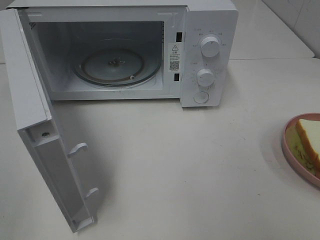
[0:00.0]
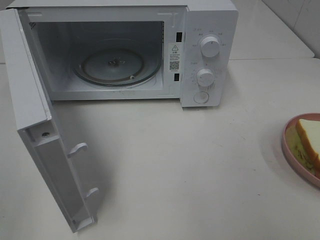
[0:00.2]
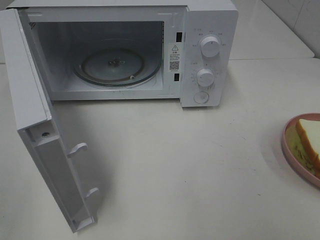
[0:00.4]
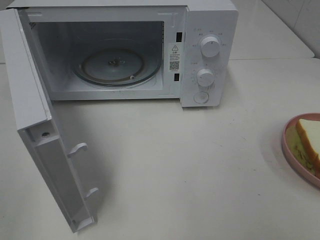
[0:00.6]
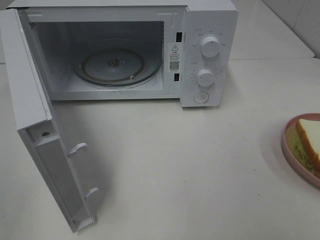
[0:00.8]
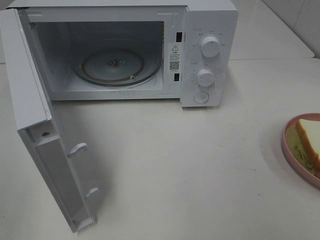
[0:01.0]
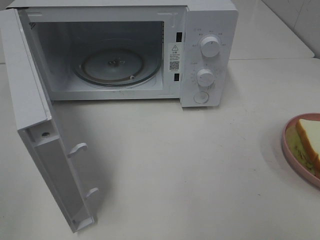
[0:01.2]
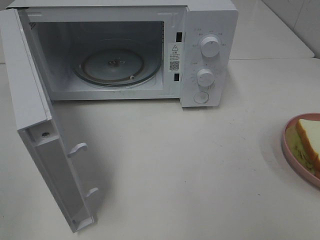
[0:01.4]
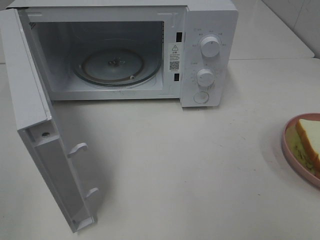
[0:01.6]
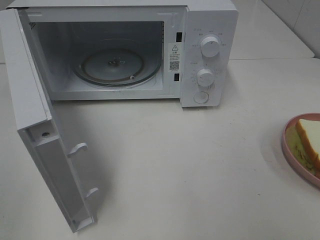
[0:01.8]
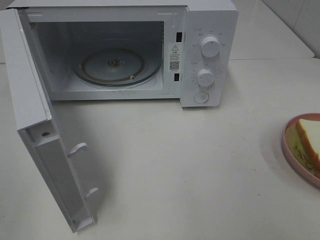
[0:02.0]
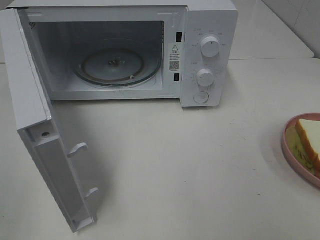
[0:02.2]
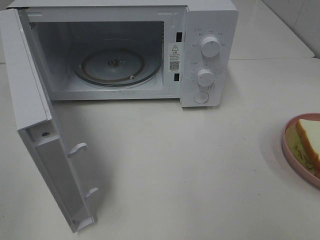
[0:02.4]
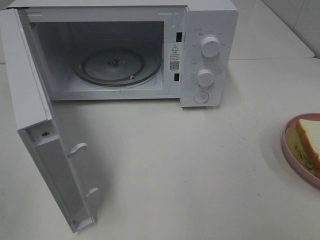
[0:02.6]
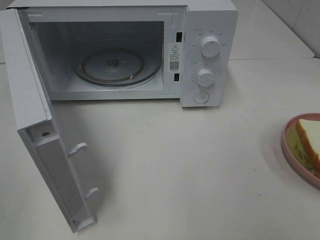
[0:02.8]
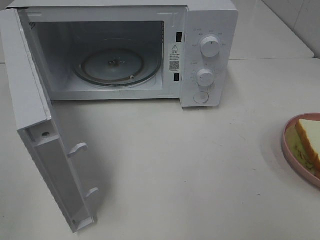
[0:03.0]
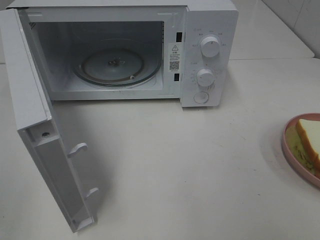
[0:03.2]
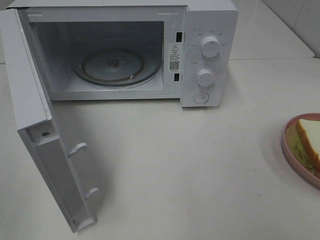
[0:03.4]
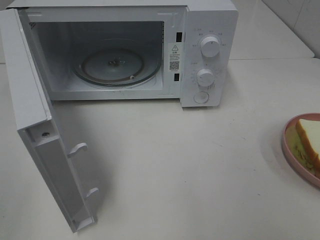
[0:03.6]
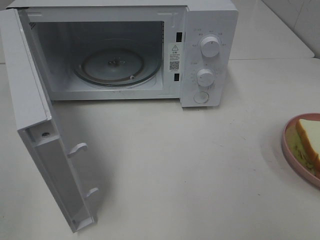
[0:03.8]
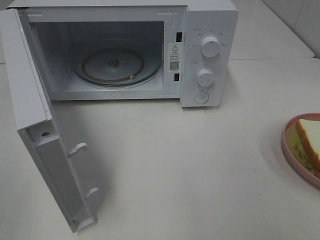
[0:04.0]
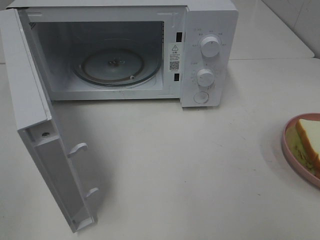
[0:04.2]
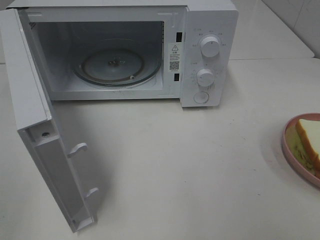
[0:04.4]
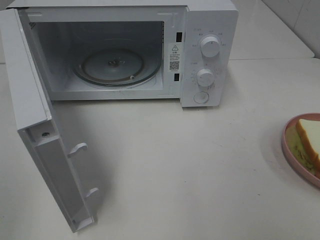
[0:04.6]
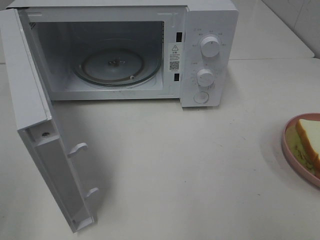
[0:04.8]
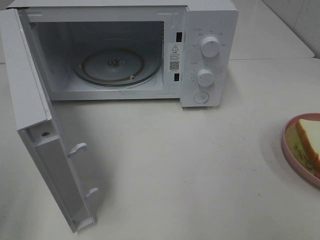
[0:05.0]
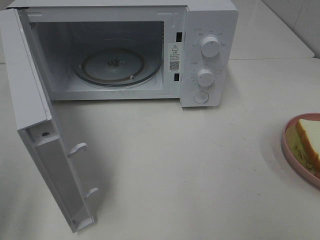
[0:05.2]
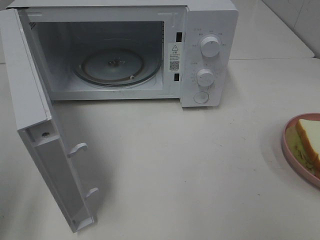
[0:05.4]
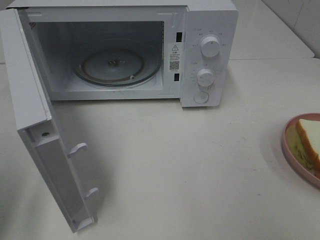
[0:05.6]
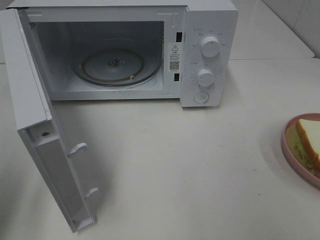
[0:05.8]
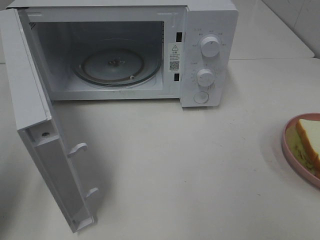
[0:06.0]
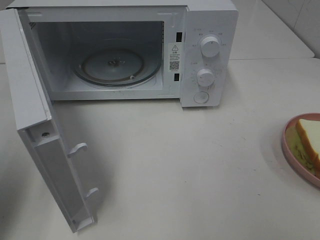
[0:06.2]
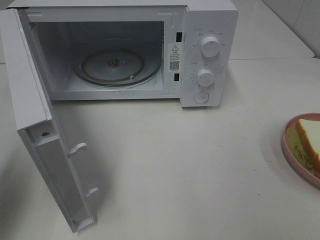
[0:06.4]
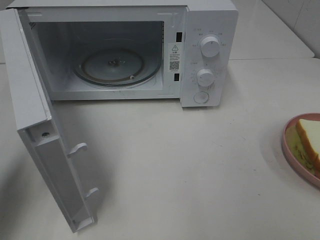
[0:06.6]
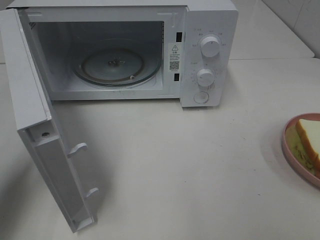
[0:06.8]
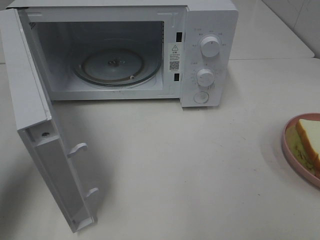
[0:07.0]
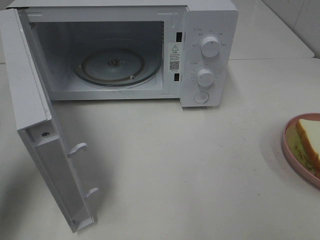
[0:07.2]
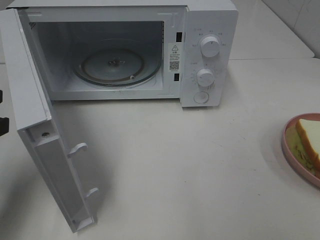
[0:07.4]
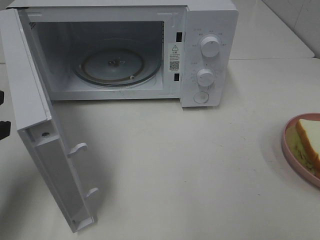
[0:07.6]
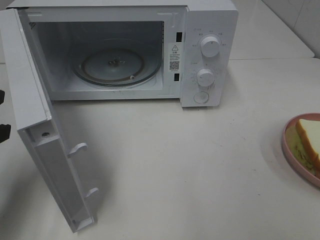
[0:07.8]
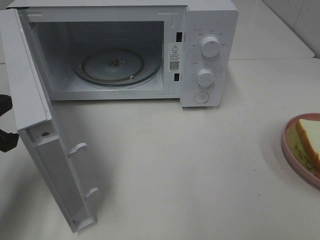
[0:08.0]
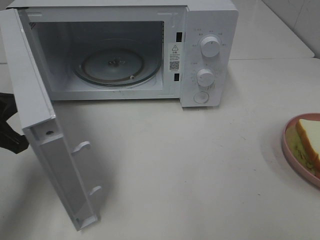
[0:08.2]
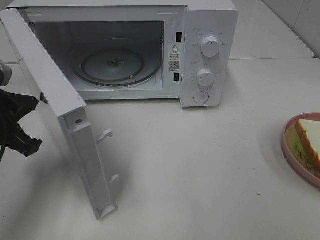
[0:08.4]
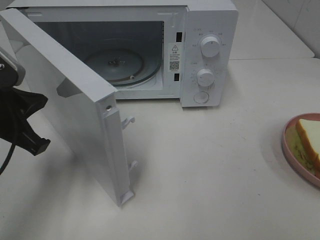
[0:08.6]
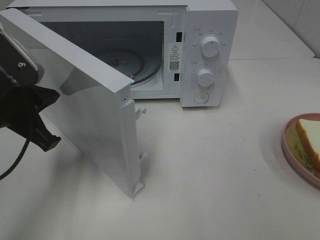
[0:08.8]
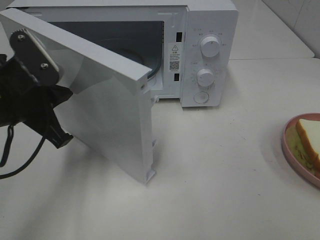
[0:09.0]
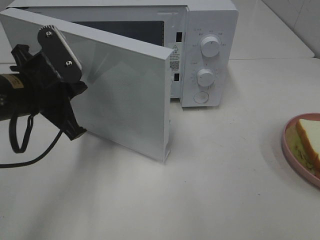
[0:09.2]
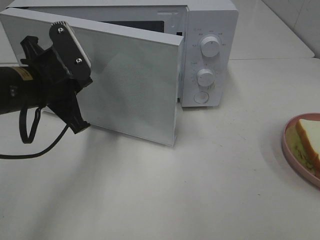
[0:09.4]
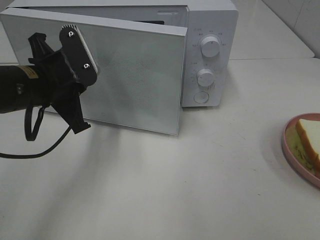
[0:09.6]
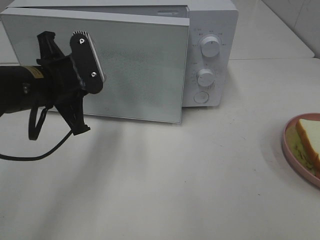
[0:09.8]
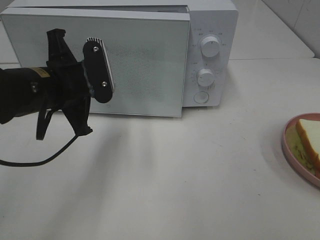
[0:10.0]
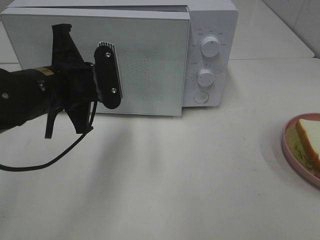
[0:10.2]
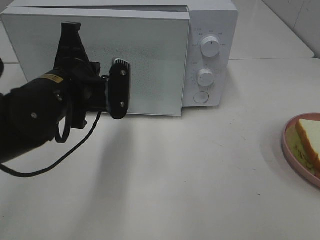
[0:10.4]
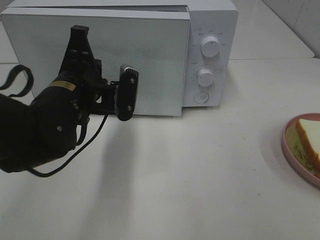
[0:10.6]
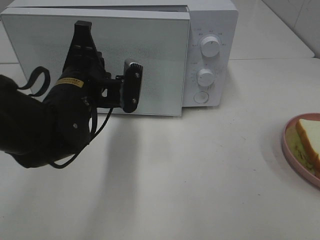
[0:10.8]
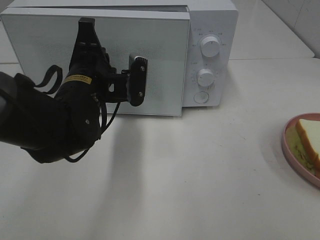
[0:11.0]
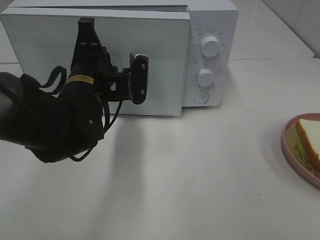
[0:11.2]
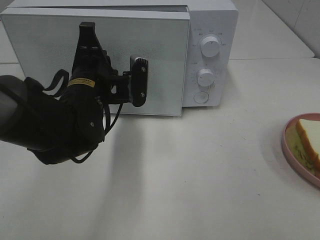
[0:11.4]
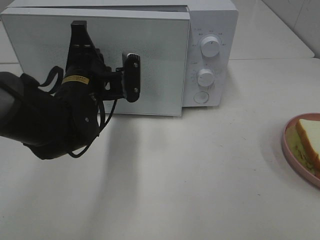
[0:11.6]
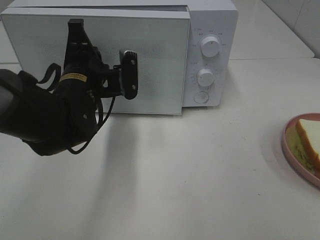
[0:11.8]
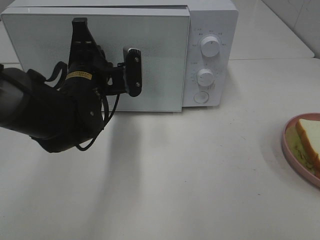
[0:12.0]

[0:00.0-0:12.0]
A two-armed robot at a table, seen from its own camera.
Task of the whole recording: Heat Sandwich.
0:01.6 to 0:04.4: Neither gripper changes place.
0:04.4 to 0:06.0: The left gripper goes some 15 cm forward.
0:06.0 to 0:07.6: The left gripper moves forward, roughly 5 cm, and closes up.
0:07.6 to 0:09.0: The left gripper heads to the right, covering approximately 10 cm.
0:09.0 to 0:10.4: The left gripper heads to the right, covering some 5 cm.
0:10.4 to 0:12.0: The left gripper is displaced forward by some 5 cm.

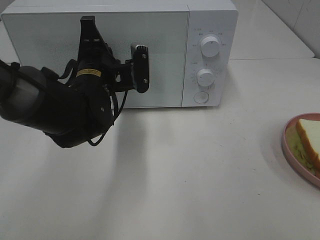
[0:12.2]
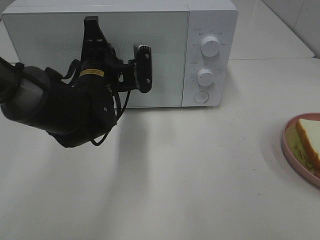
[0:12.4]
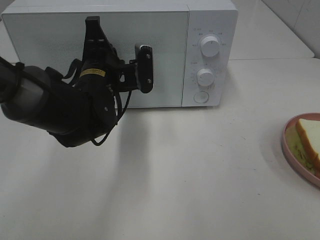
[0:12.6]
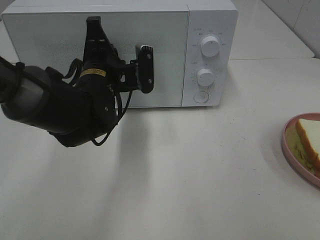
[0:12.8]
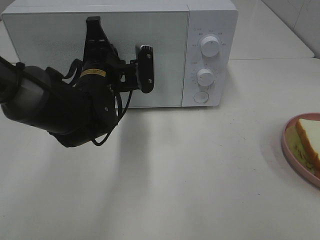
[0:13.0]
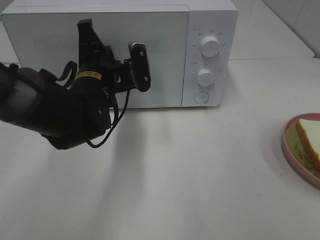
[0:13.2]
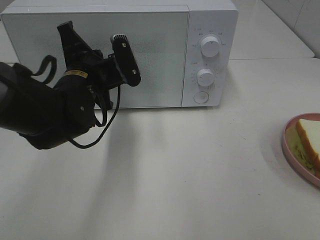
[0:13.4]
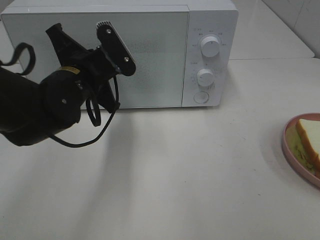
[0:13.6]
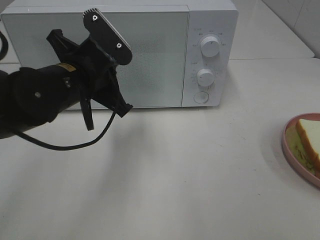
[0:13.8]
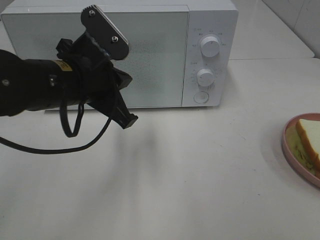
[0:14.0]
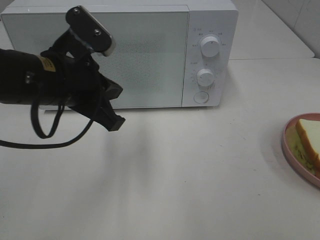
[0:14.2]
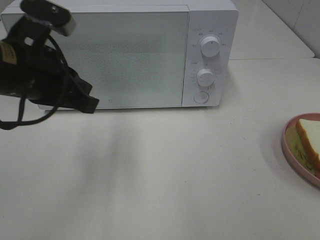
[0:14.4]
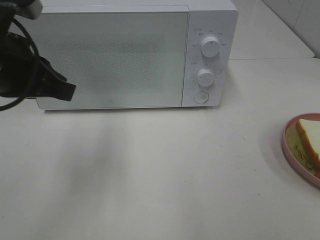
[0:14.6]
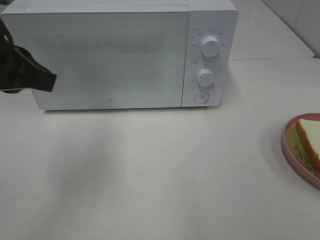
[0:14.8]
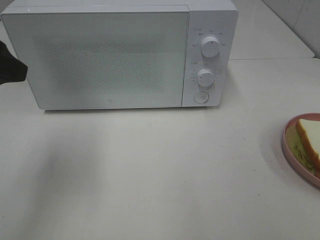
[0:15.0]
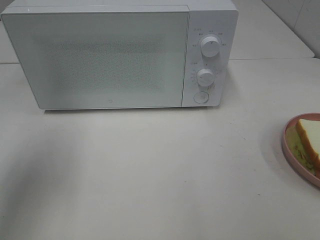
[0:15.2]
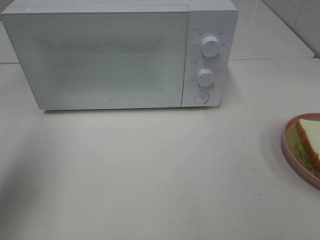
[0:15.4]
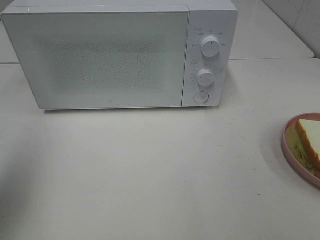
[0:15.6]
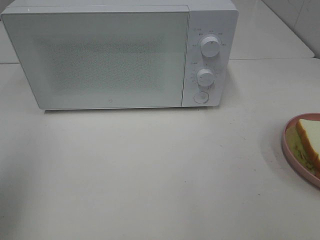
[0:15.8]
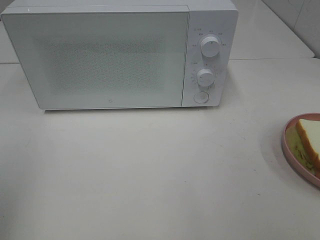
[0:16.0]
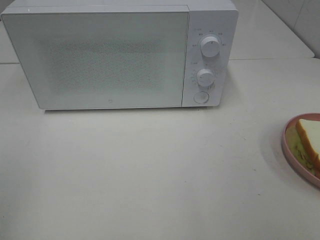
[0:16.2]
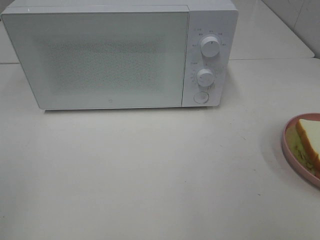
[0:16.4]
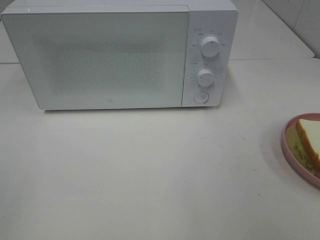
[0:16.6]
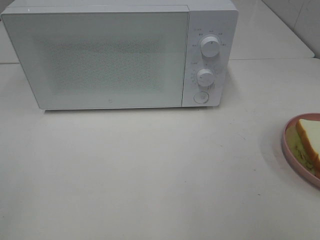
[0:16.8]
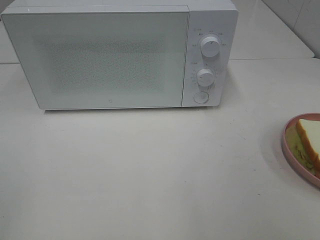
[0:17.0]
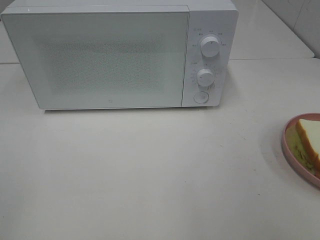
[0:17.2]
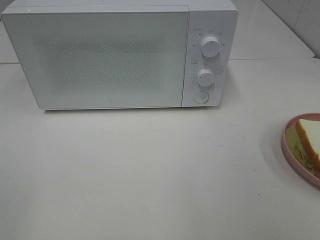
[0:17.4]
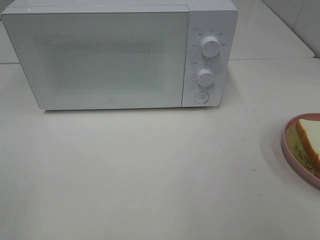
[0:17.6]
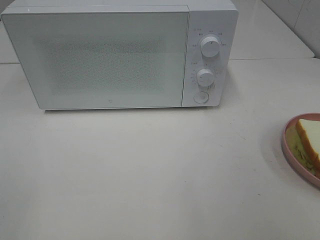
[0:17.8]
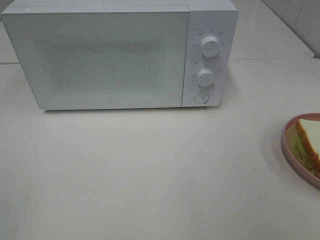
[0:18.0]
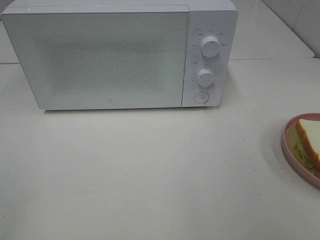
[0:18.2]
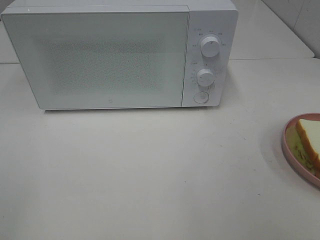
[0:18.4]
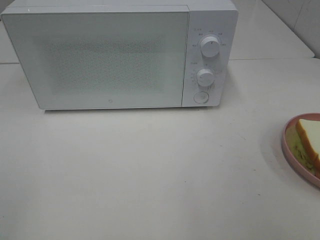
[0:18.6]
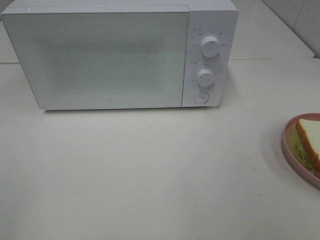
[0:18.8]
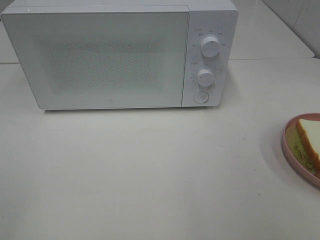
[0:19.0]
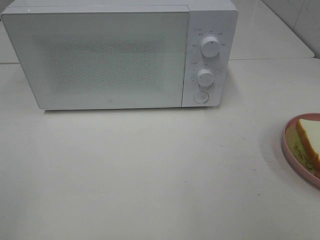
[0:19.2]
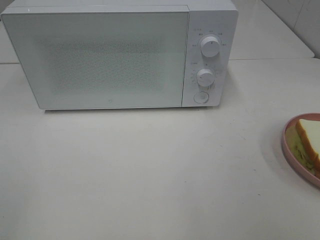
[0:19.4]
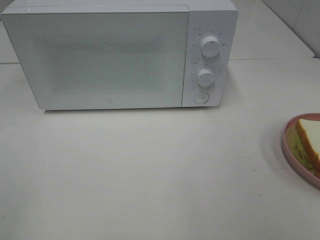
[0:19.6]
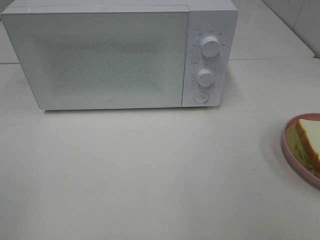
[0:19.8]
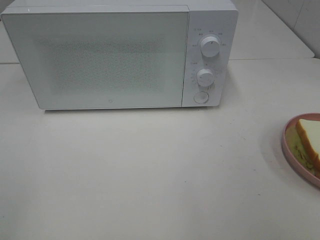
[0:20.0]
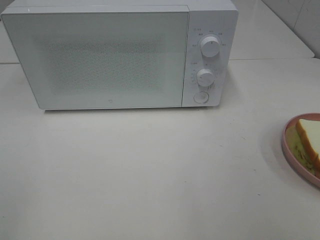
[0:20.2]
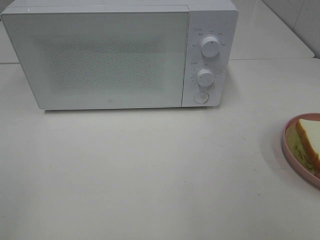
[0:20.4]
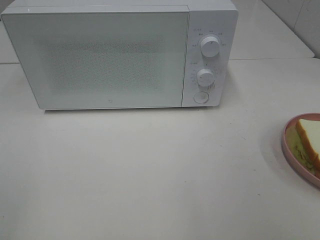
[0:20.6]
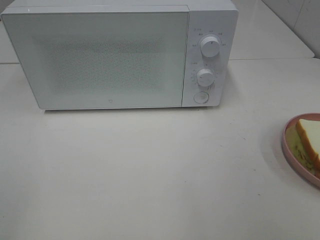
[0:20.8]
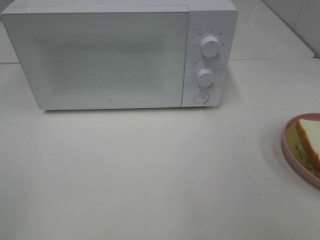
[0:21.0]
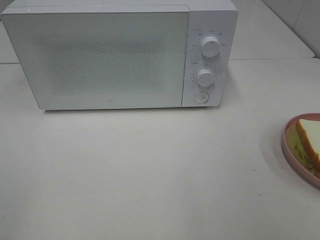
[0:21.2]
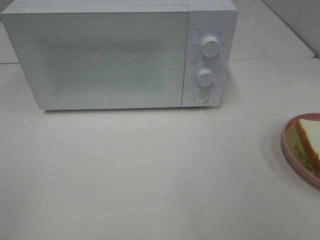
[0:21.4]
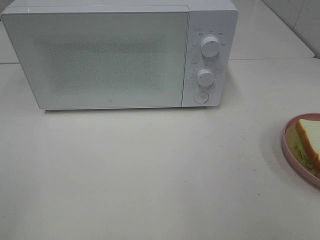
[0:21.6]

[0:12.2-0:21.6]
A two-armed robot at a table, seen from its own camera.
Task of the whole recording: Heat Sandwich.
Step, 0:12.2 to 0:14.2: Left hand: close the microwave door.
0:12.2 to 0:13.8: The left gripper moves backward, some 5 cm.
0:13.8 to 0:15.4: The left gripper goes about 25 cm to the left, upward and backward, and opens its fingers.
0:15.4 to 0:17.0: The left gripper moves backward, about 15 cm.
0:18.4 to 0:21.6: Both grippers stay put.

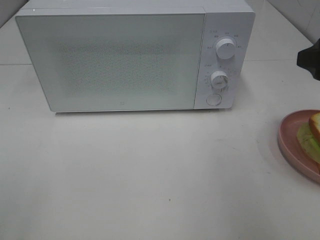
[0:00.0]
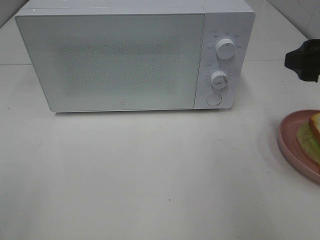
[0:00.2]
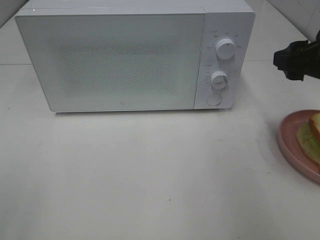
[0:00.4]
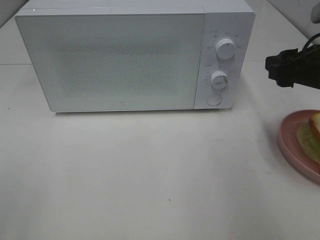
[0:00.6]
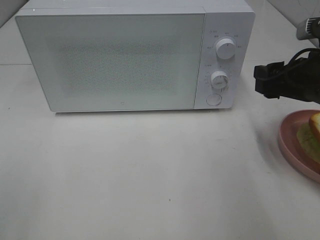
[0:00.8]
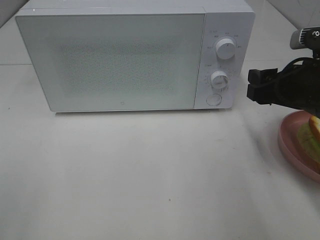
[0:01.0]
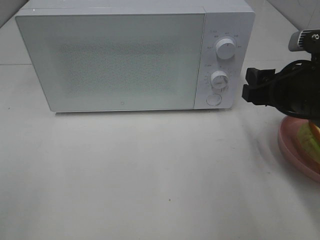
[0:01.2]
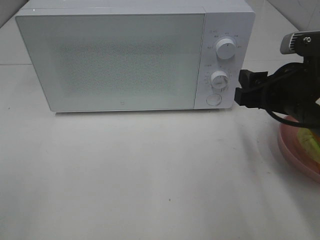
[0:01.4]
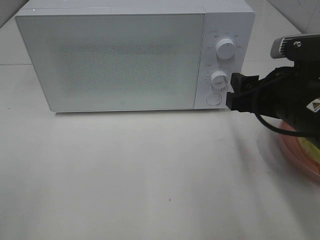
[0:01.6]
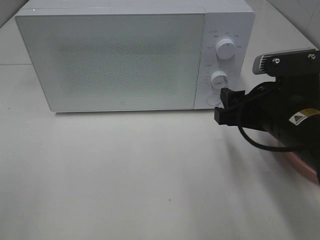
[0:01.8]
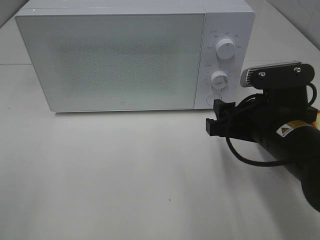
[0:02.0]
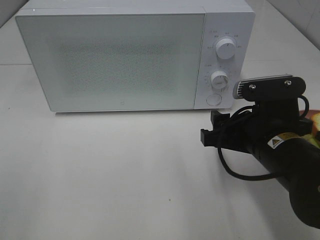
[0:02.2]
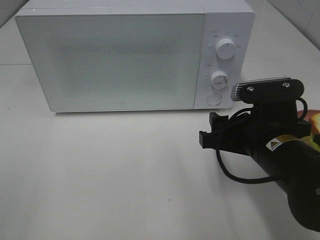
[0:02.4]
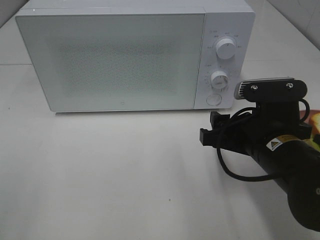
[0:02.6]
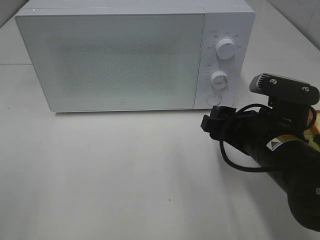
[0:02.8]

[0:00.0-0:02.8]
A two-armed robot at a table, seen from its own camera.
Task of the whole recording: Heat Sandwich.
0:00.0 to 0:01.4: The right gripper shifts about 10 cm downward and to the left.
0:01.4 to 0:02.8: The right gripper travels downward by about 5 cm.
